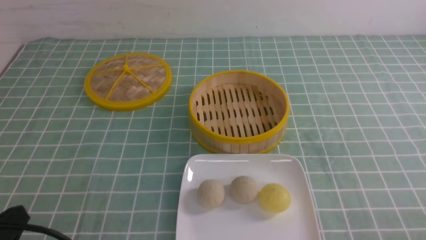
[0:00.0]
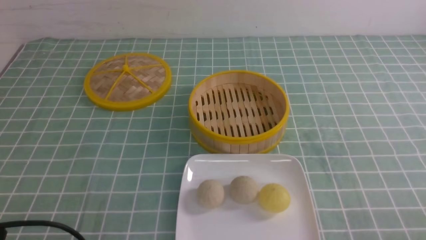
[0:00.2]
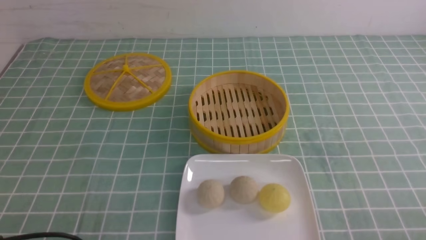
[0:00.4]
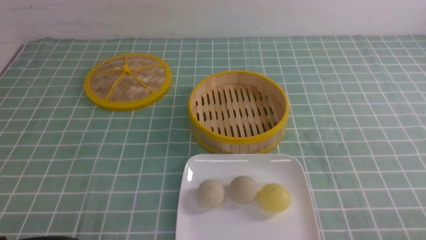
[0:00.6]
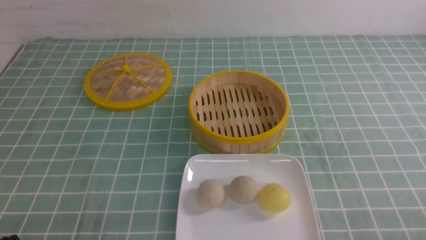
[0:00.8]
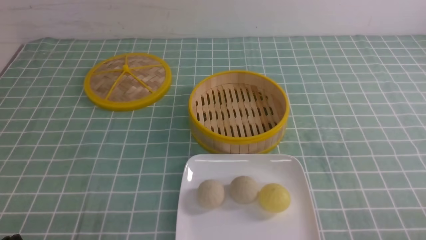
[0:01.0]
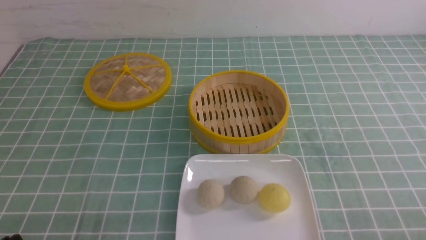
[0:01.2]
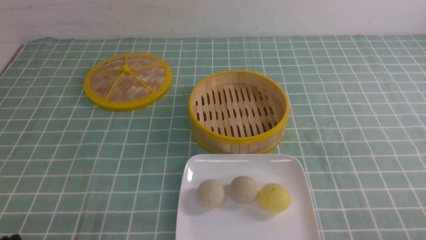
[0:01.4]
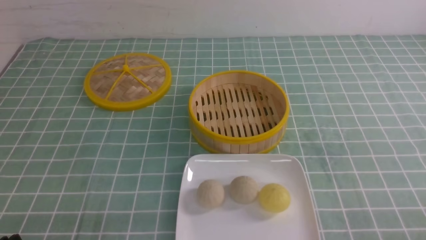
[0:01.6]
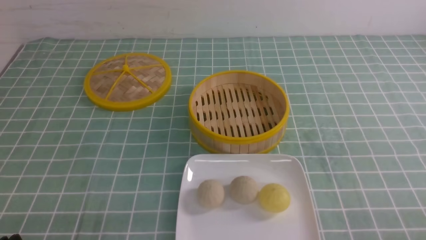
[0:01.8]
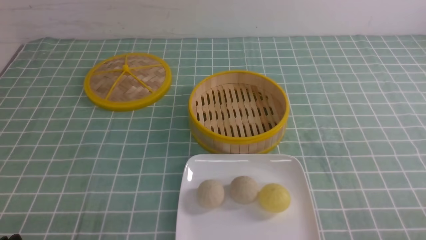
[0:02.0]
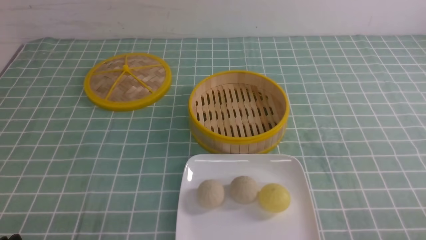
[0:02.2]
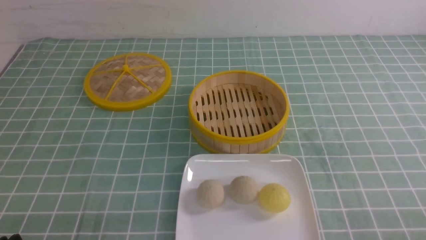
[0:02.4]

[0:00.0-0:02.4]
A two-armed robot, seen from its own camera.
0:00.0 to 0:01.2: The left gripper goes about 5 cm downward.
0:01.2 to 0:02.4: Both grippers stay about where they are.
